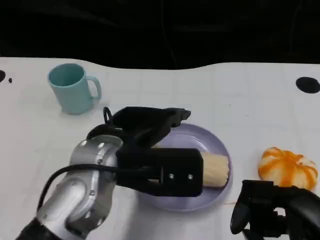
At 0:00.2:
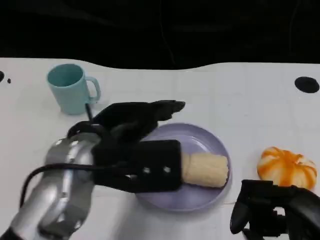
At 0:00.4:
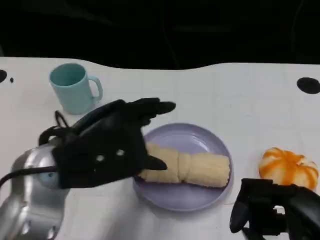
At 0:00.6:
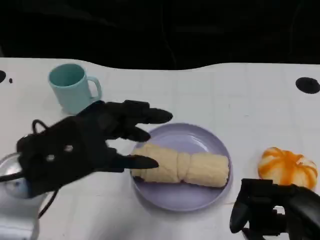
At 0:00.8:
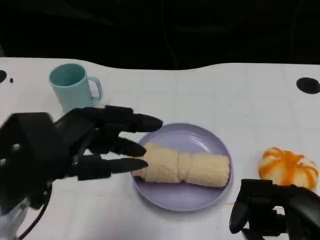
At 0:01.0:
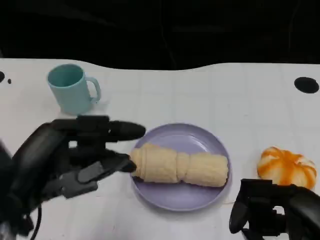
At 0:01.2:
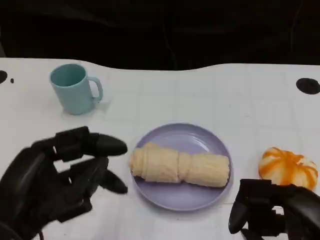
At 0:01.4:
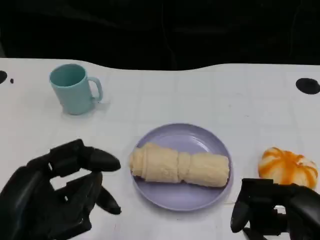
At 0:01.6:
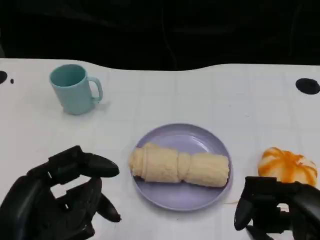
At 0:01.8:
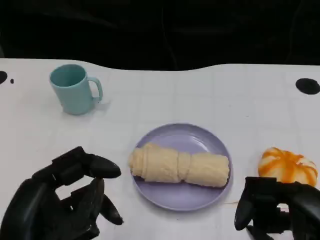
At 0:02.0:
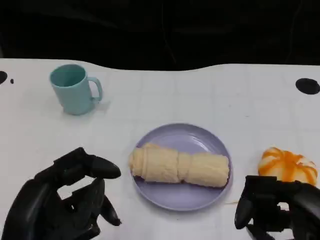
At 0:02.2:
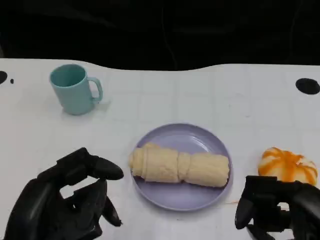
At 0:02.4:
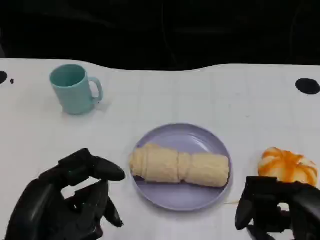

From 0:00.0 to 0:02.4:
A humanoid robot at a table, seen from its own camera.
Task of the whole recording: Grasp the towel on the left side of the plate with the left hand and place it into the plate.
From 0:00.0 to 0:01.2: The left hand goes roughly 15 cm backward and to the left.
From 0:01.2 to 0:02.4: There are only small adjustments of the hands.
